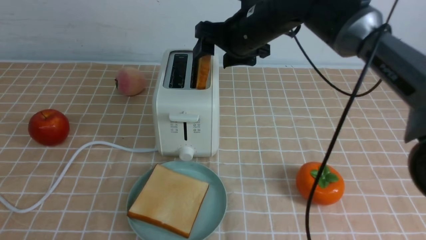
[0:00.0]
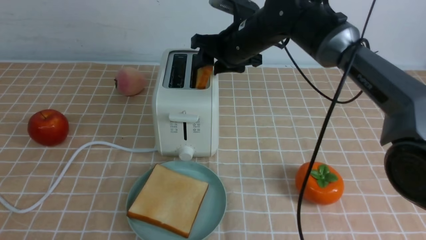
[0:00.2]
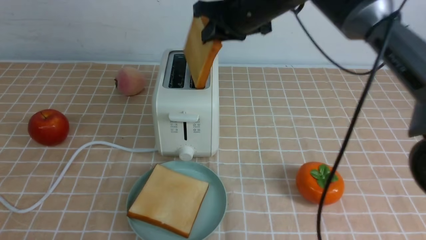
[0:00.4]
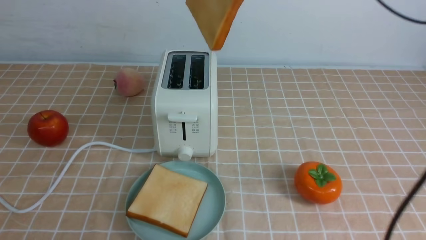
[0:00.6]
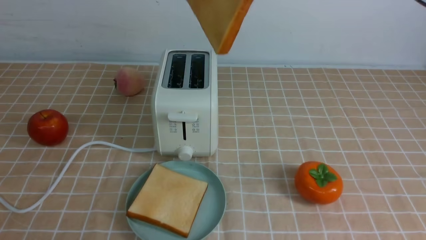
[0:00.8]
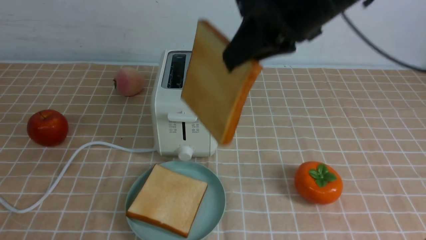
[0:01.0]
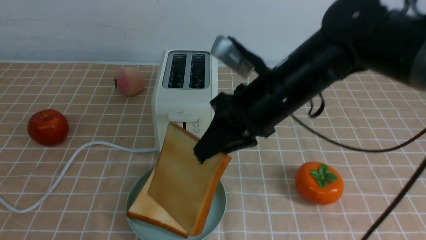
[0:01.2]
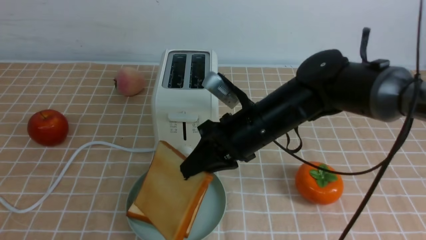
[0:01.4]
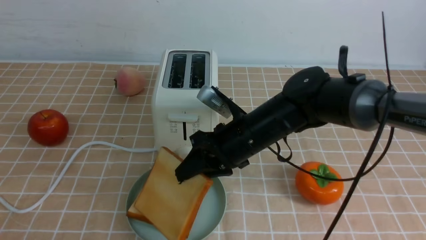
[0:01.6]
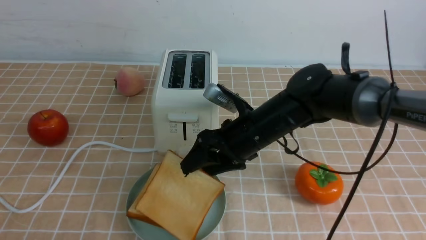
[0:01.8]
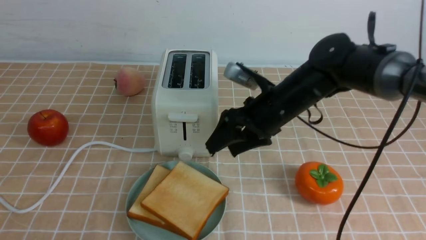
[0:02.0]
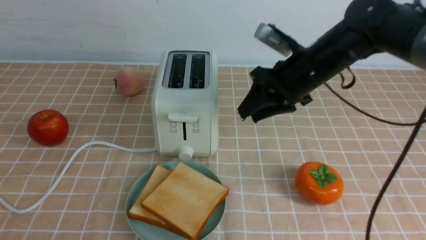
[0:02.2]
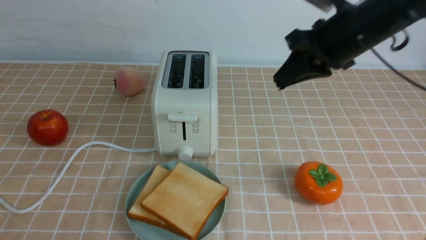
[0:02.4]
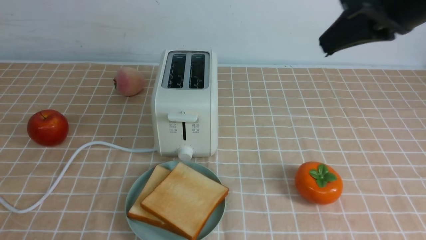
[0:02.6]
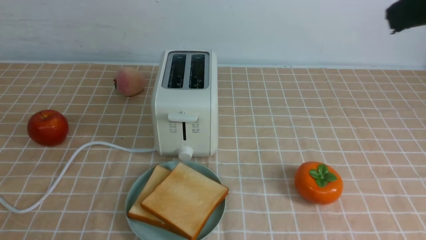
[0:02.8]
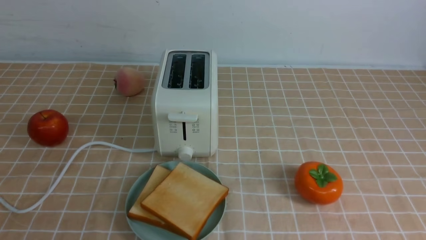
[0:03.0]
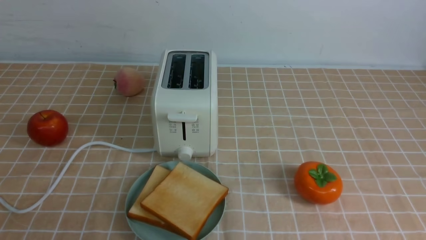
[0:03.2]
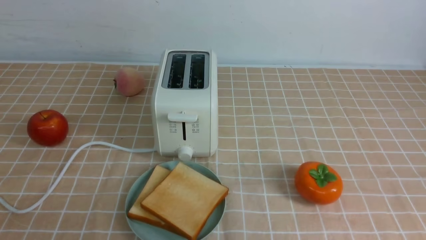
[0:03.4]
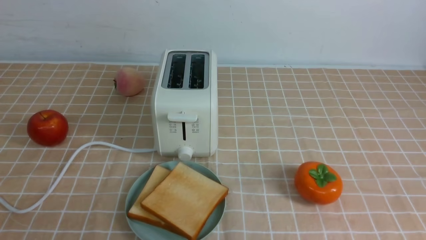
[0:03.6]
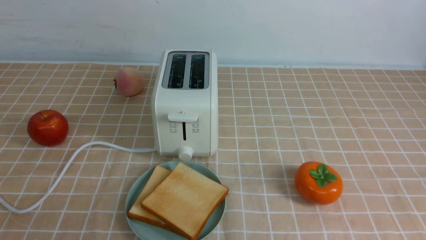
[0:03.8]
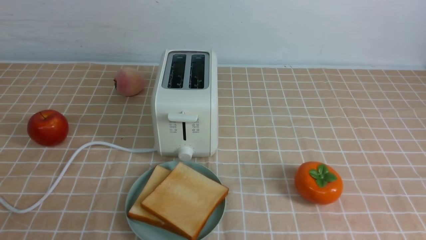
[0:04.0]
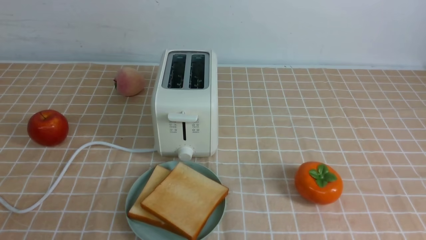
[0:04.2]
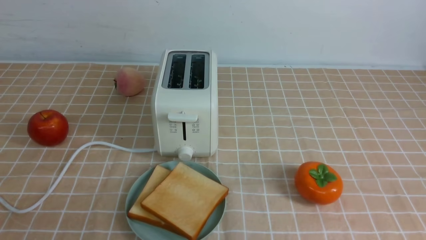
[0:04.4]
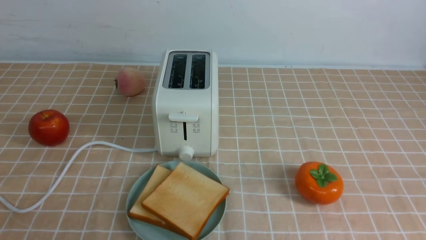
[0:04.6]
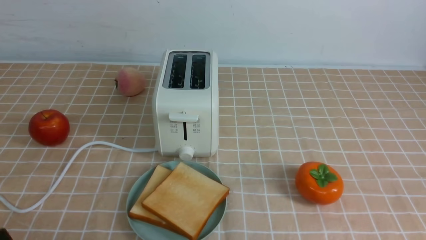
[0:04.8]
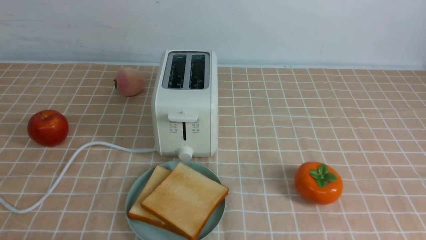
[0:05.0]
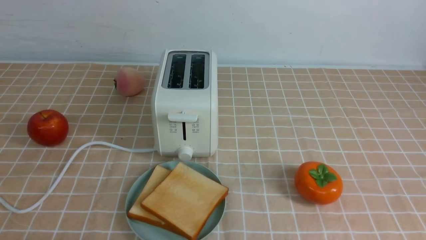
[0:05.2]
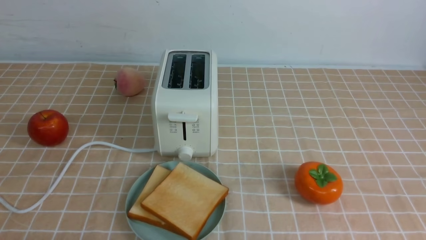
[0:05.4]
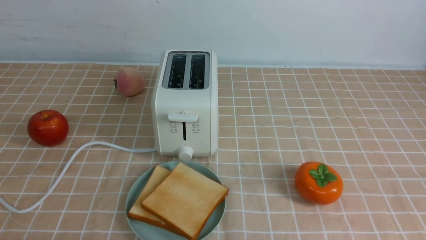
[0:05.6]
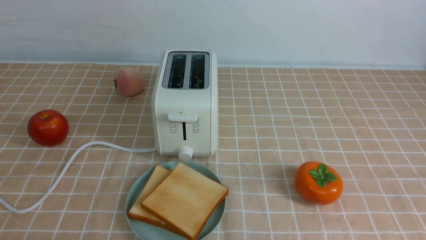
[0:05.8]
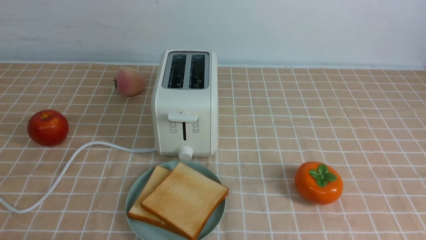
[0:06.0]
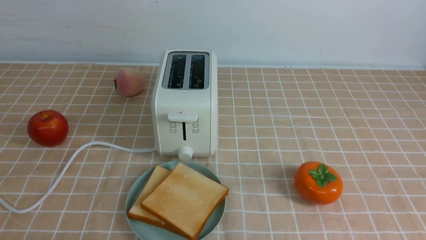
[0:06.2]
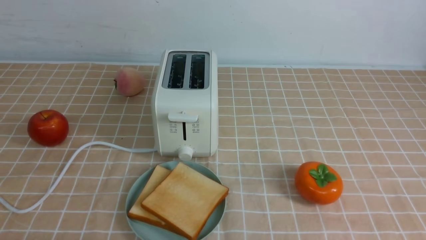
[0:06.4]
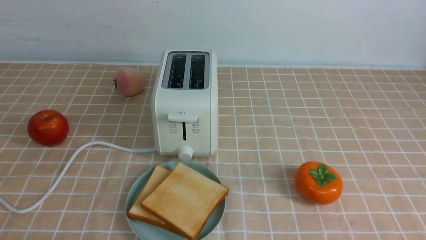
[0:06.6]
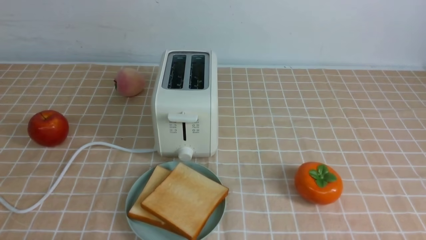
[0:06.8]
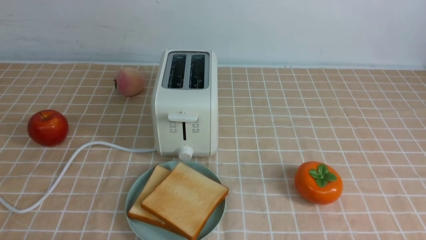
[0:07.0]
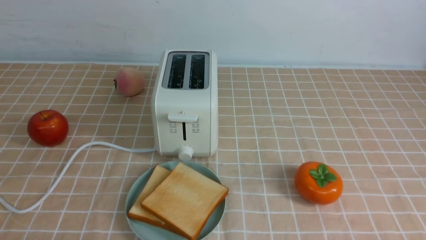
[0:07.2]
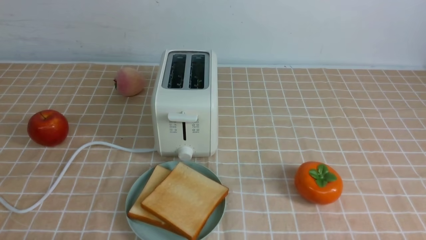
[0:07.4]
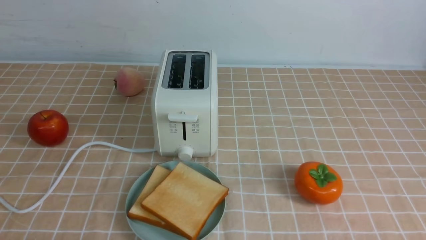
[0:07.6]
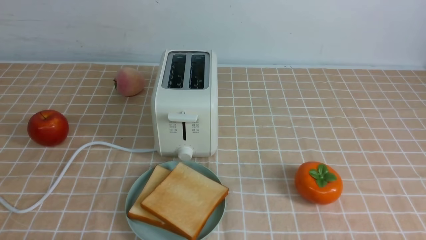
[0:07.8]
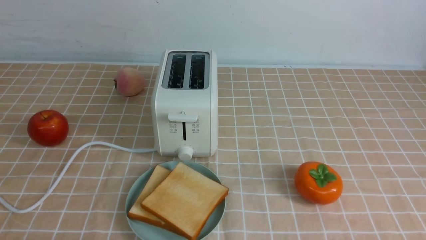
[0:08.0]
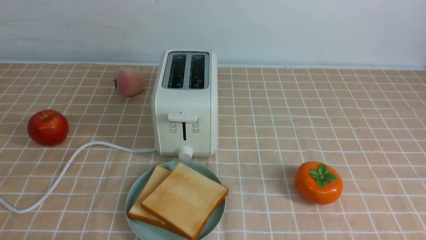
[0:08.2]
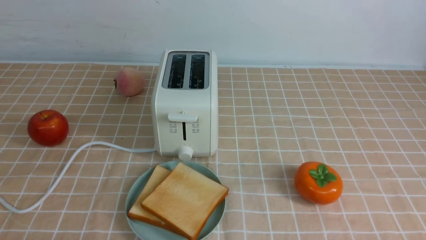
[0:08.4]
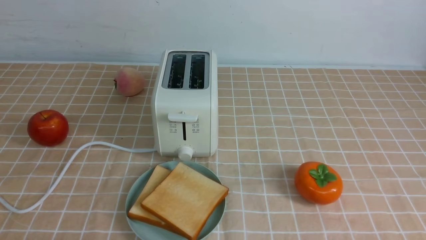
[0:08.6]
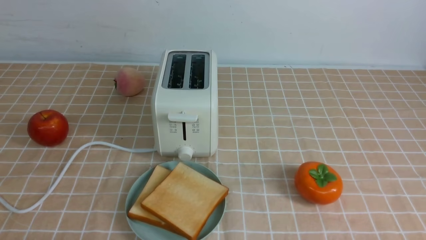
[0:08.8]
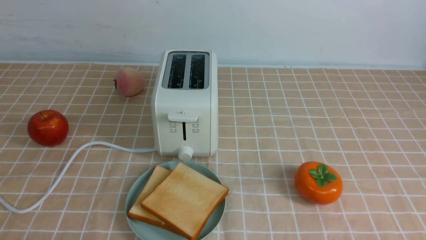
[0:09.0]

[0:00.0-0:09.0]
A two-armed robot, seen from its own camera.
Task of the whole recording: take toasted bread from bread machine on light coffee tablecloth place on plate.
Step, 0:00.4 to 0:01.8: use the right arm to put a slice of bread into the plate.
0:00.0 to 0:01.6: The right gripper goes approximately 15 cm backward and downward, and closes, then reopens.
0:01.6 to 0:03.0: The right gripper goes about 35 cm upward, to the right and backward, and closes up.
0:03.0 to 0:04.4: The right gripper goes some 15 cm downward and backward. Meanwhile the left gripper moves approximately 5 cm.
0:07.6 to 0:09.0: Both grippers stay about where they are.
